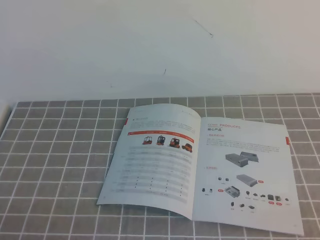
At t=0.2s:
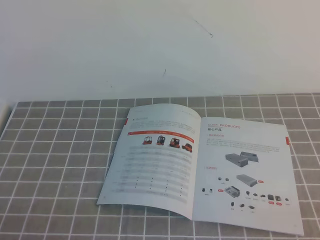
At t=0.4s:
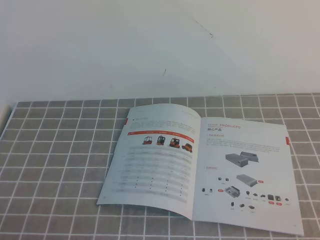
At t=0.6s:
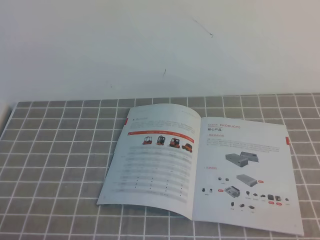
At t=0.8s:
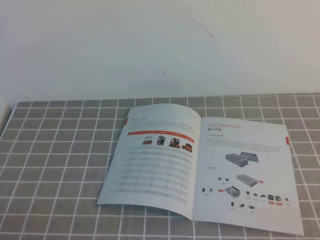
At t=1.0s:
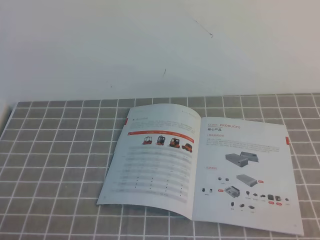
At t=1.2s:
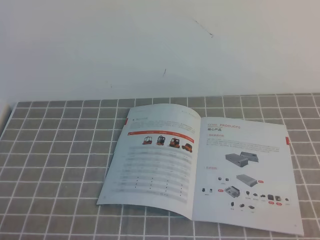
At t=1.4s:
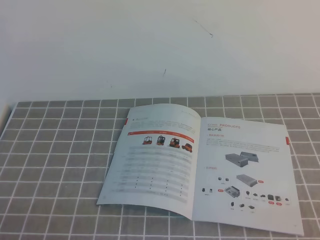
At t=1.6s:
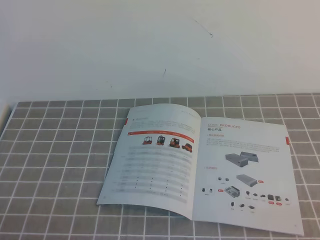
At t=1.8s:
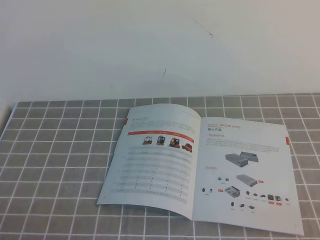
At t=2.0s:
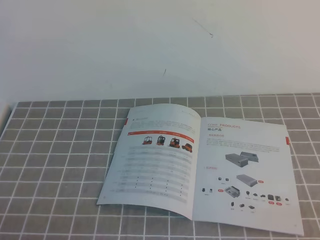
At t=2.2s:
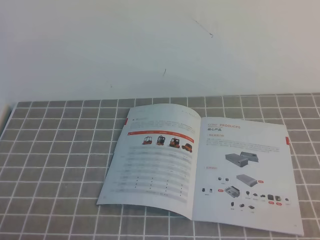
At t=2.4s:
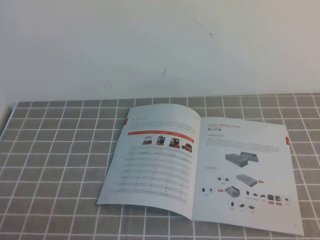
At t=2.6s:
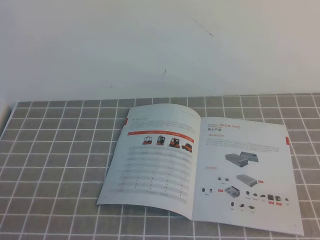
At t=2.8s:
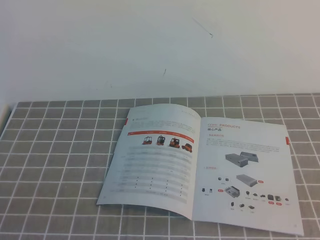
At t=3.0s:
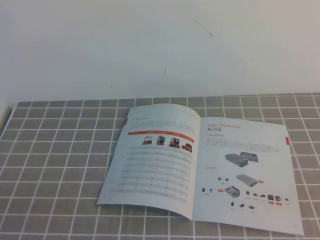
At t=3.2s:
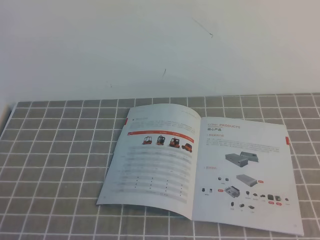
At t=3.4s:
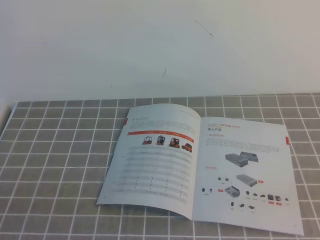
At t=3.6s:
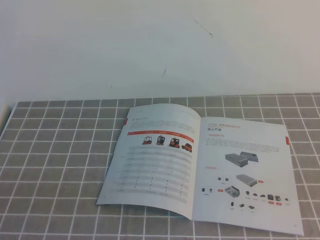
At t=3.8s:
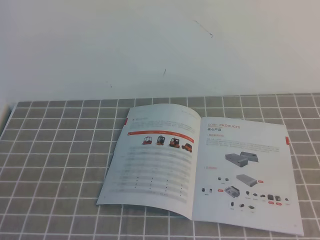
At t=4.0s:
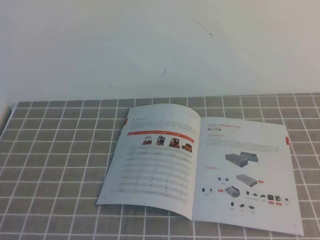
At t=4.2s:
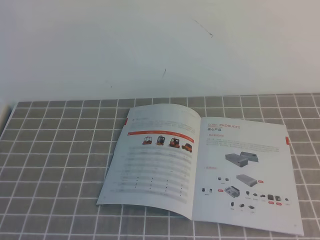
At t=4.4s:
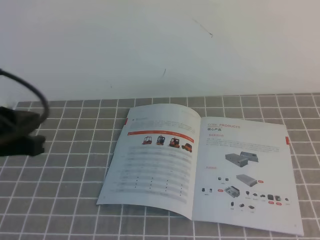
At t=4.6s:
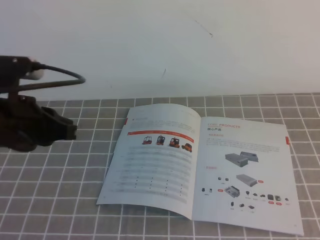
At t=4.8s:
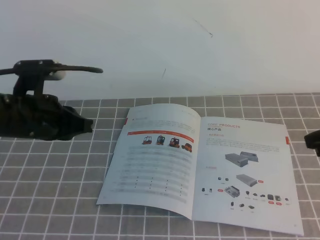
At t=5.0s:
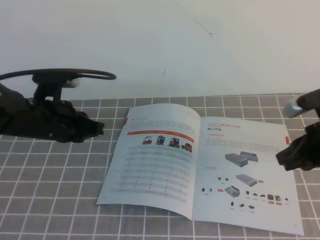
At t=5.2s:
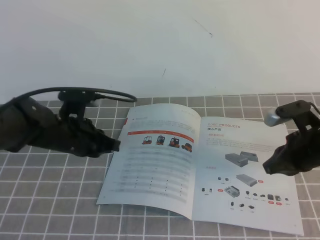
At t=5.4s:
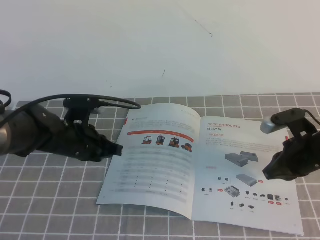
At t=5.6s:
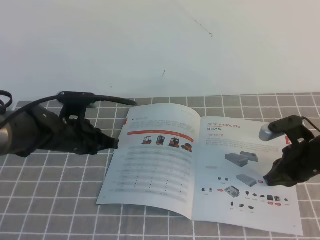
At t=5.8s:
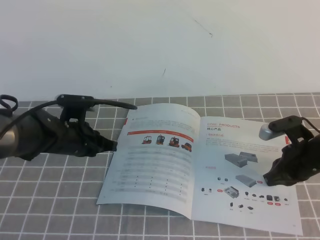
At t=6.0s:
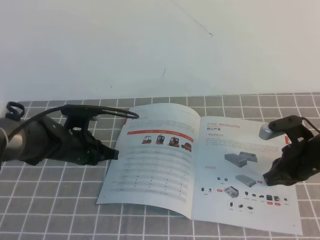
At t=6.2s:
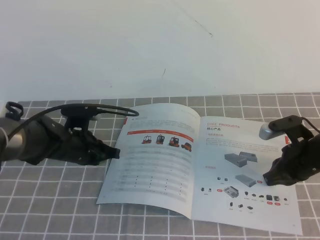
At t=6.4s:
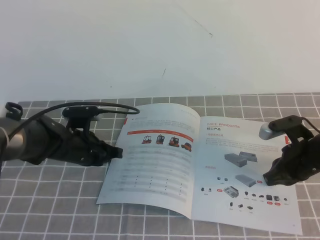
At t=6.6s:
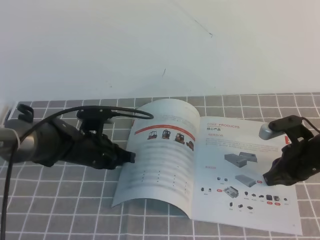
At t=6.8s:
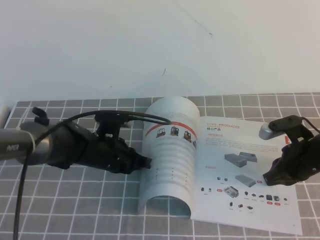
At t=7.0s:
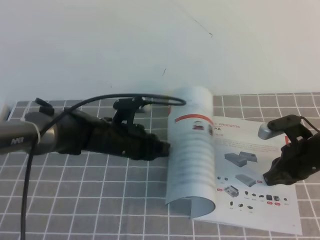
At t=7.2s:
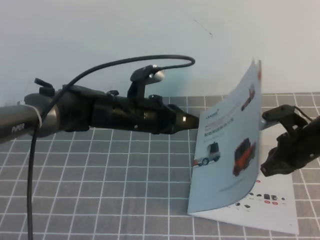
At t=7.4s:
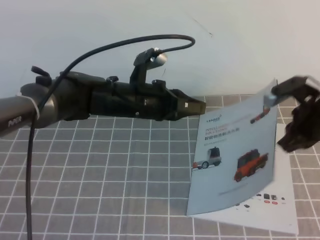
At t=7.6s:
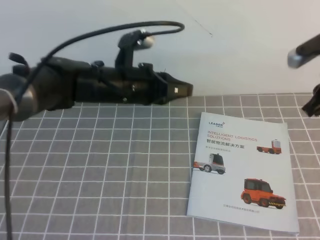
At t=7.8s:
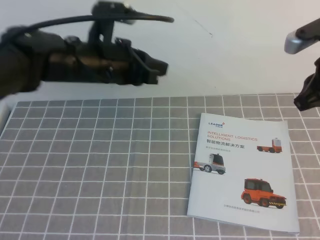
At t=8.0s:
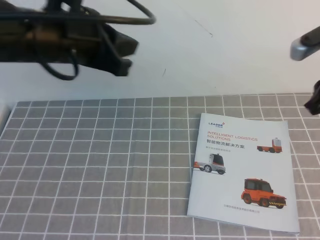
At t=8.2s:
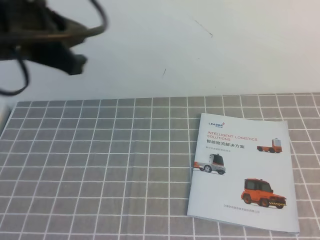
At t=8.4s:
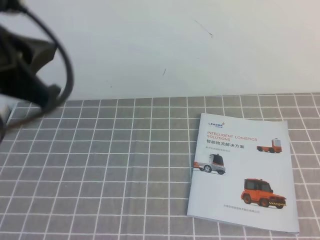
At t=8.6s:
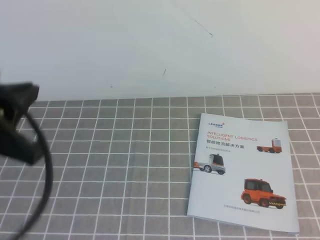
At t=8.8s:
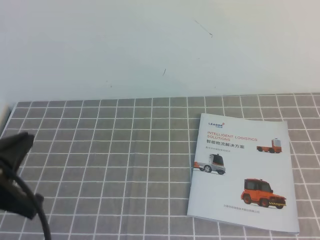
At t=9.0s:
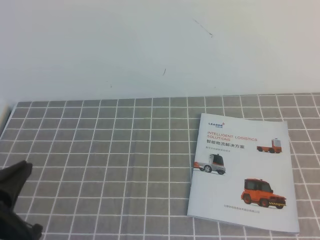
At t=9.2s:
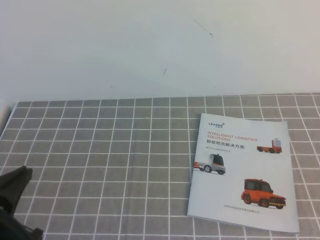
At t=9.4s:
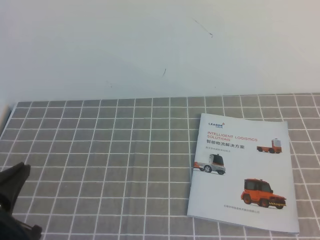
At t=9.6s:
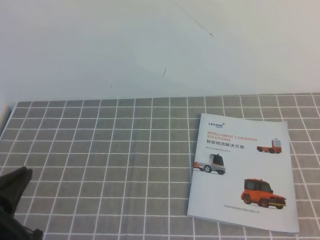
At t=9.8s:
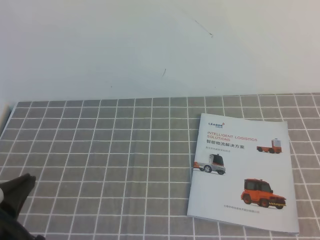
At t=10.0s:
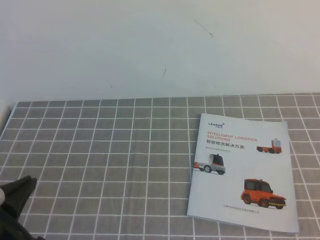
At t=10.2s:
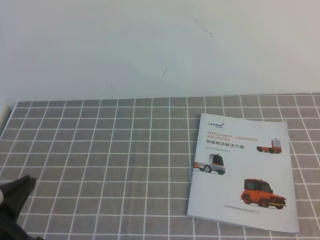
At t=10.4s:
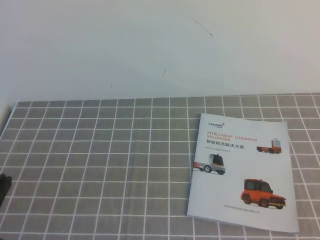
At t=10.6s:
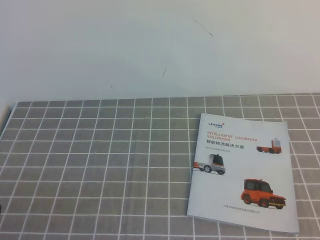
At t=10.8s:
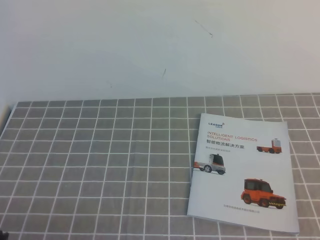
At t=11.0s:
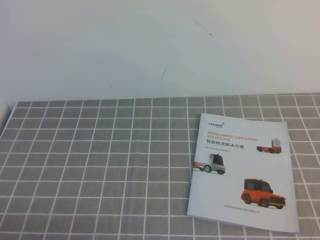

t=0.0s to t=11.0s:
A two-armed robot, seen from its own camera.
Task of the whole recording: on the grey tablecloth, hold the book with one hand and close it with the other.
t=0.0s to t=1.6s: Both grippers stay put.
t=3.2s to t=4.8s: The left gripper is displaced forward by approximately 25 cm.
t=4.8s to t=6.2s: Both grippers travel together downward and forward, approximately 15 cm.
t=6.2s to t=7.8s: Both grippers travel together upward, some 20 cm.
t=7.8s to t=9.4s: The right gripper shifts roughly 30 cm backward; the left gripper heads backward and to the left, covering roughly 25 cm.
t=9.4s to t=11.0s: The left gripper is displaced downward and backward by some 10 cm.
